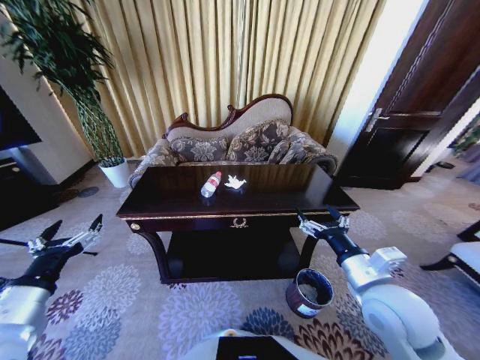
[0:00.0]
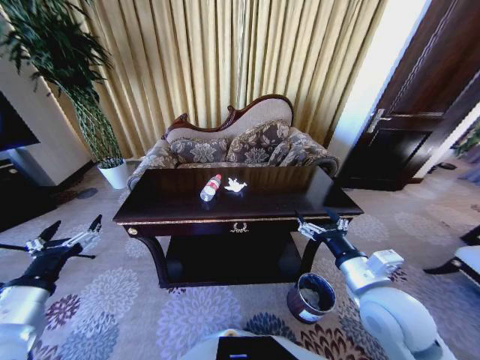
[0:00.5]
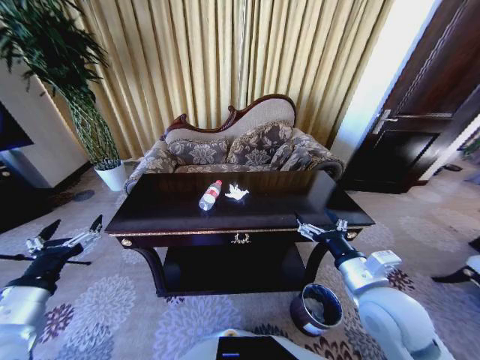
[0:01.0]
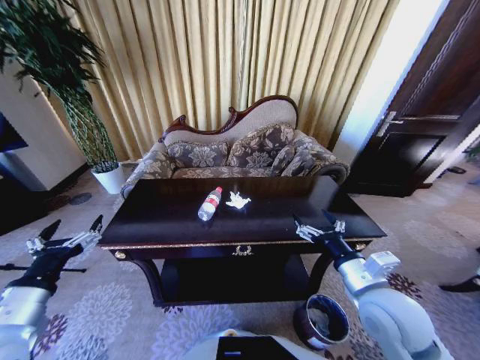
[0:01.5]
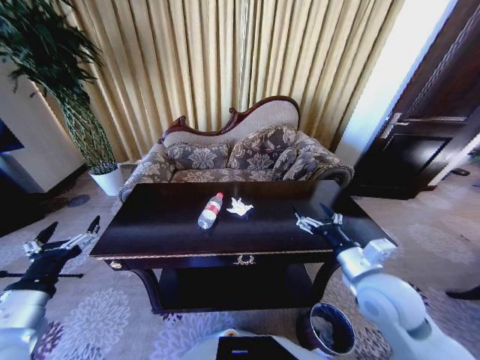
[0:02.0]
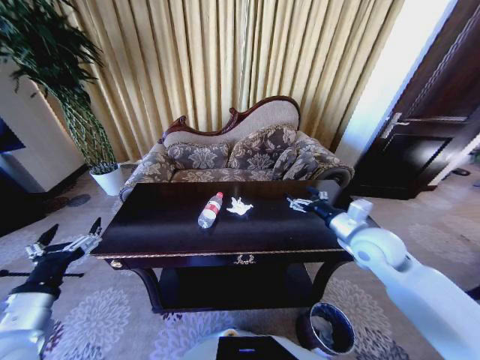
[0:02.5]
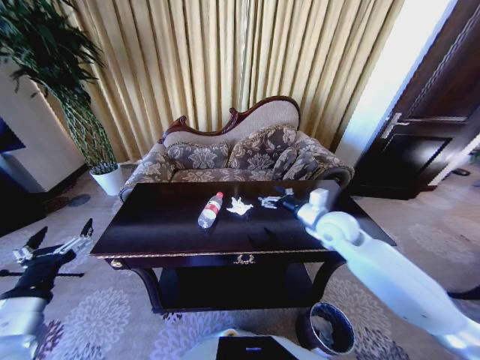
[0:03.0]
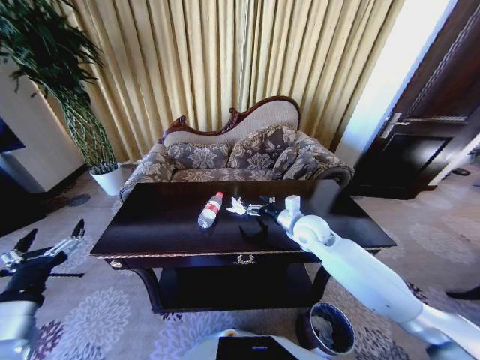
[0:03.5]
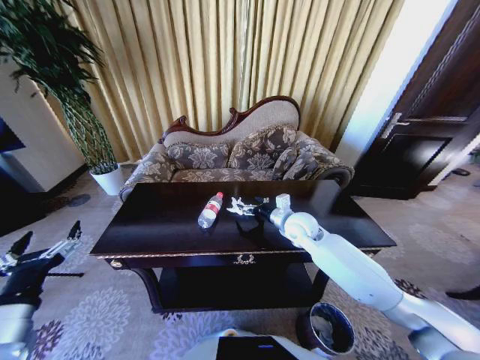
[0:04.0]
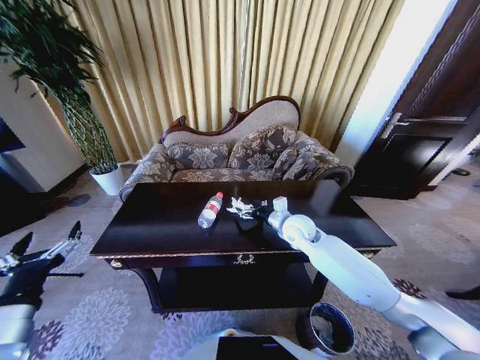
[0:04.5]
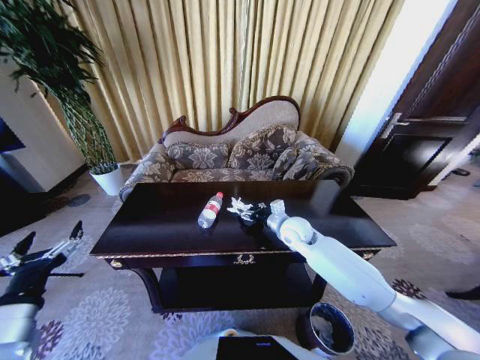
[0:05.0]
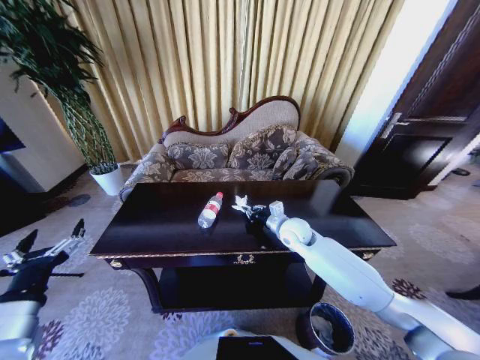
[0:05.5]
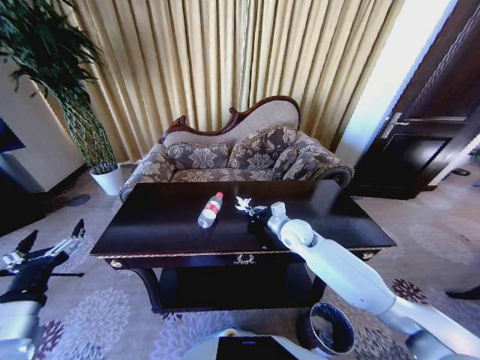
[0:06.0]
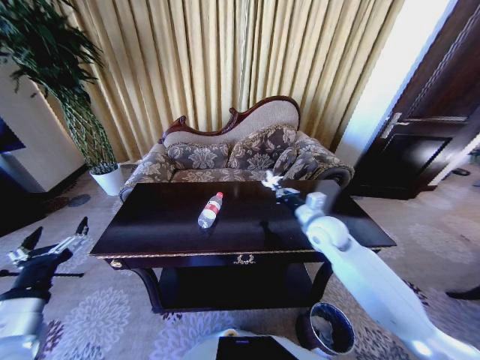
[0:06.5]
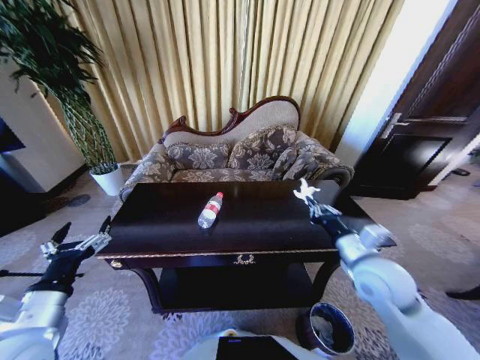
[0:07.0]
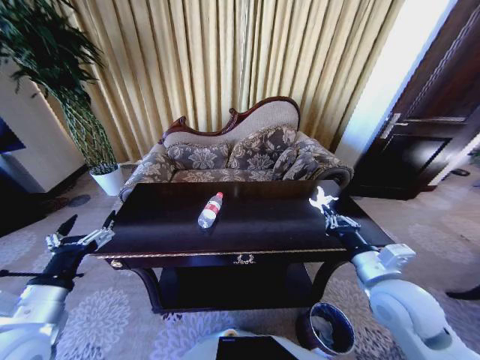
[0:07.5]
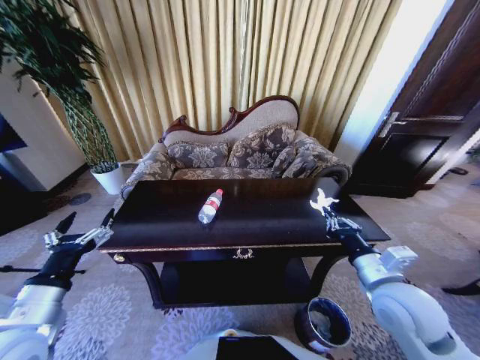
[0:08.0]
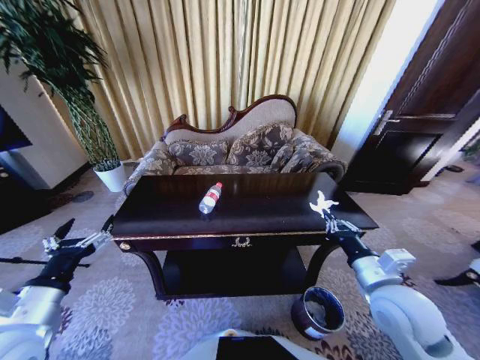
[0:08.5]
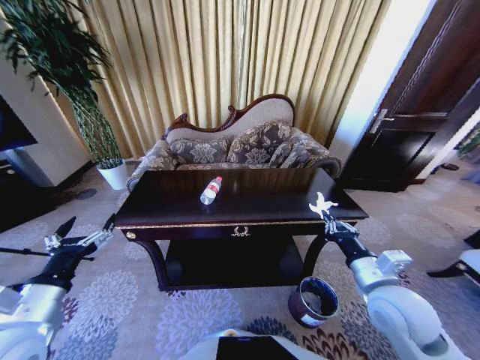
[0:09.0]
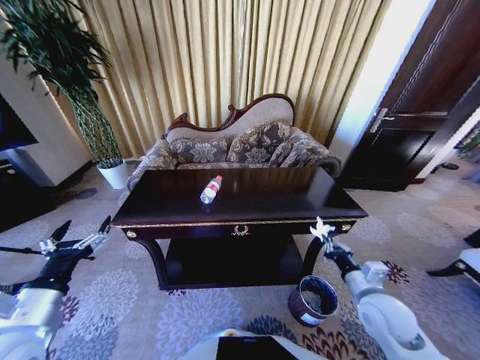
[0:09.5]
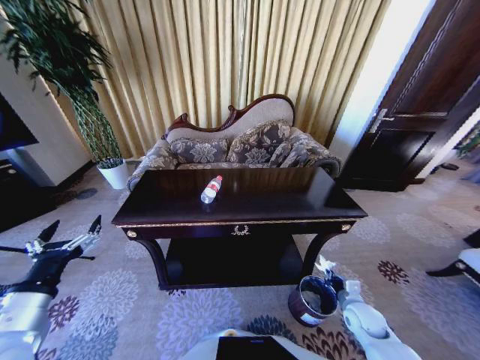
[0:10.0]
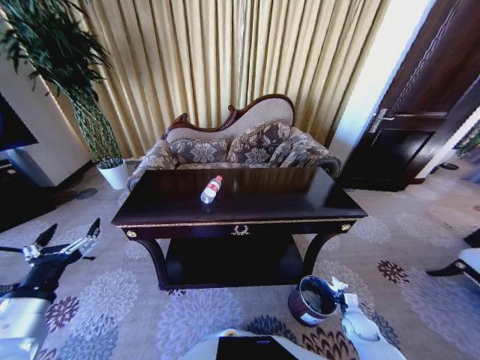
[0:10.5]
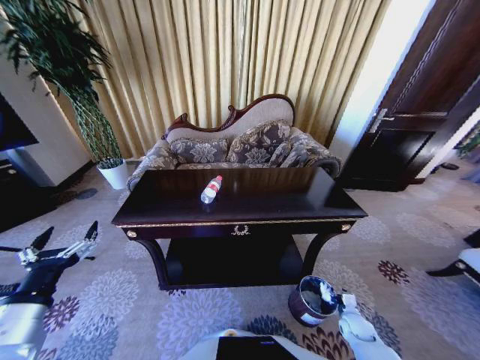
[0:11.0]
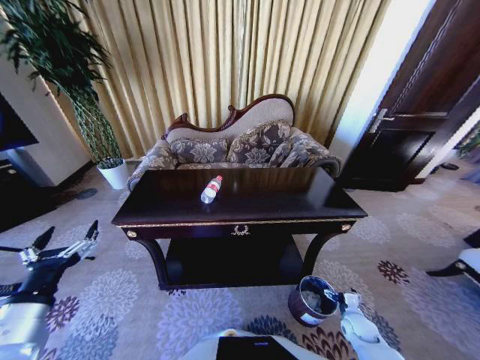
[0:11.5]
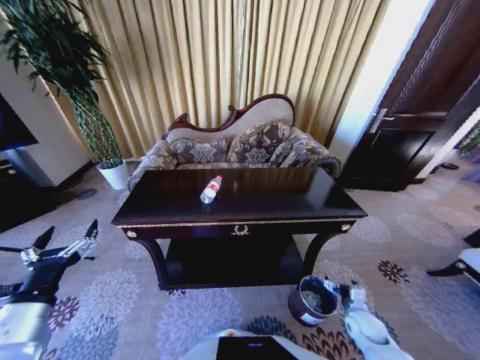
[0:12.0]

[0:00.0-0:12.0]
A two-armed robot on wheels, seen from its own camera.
Task of the whole recording: Move to the front of the table and place the trash on the table into the trash bin.
2.0 to 4.0 s: The right gripper goes approximately 20 cm forward and to the left.
4.0 to 6.0 s: The right gripper closes.
6.0 to 8.0 s: The right gripper travels backward and to the right by roughly 25 cm.
8.0 to 10.0 s: The right gripper travels downward by roughly 25 cm.
10.0 to 12.0 s: The right gripper opens.

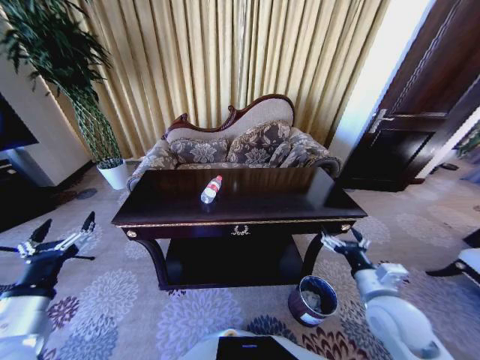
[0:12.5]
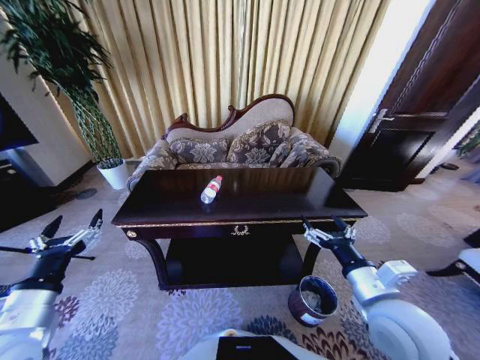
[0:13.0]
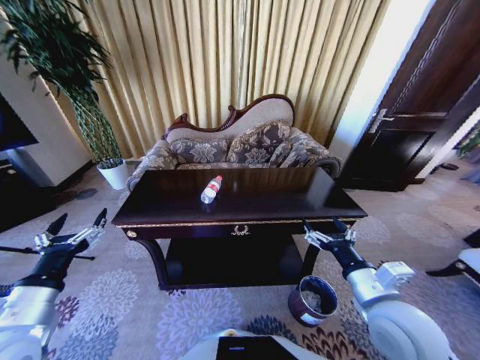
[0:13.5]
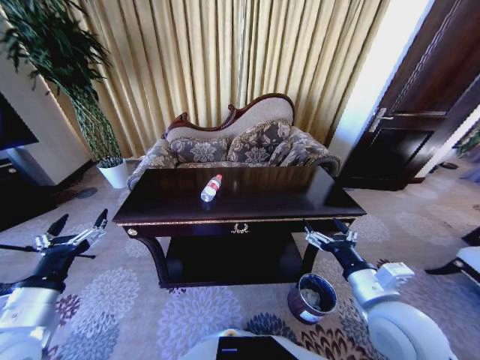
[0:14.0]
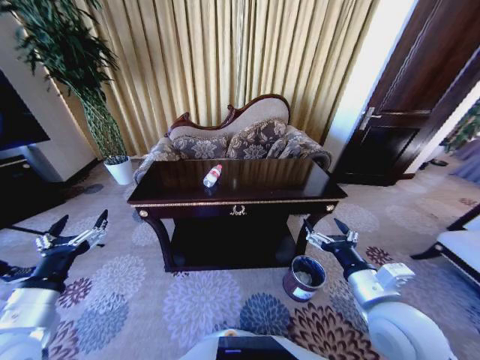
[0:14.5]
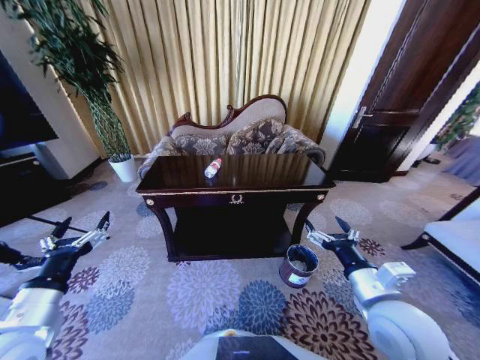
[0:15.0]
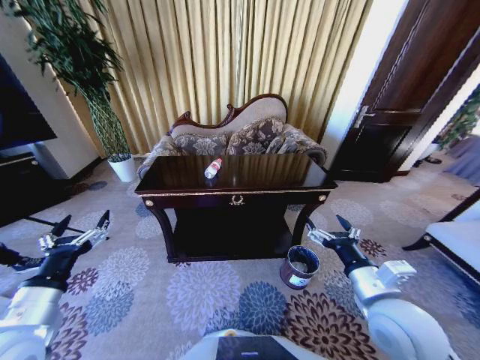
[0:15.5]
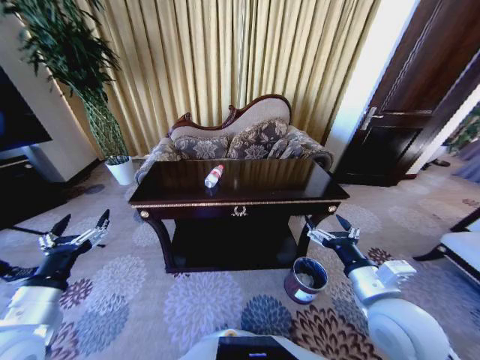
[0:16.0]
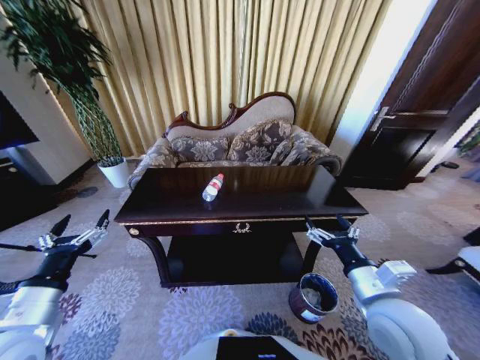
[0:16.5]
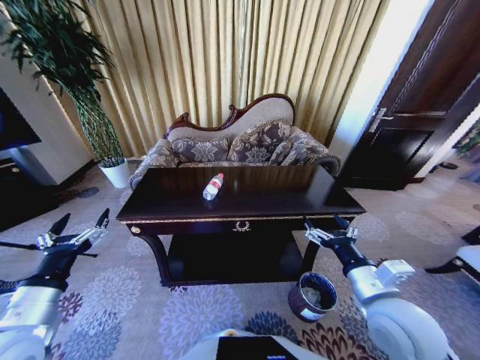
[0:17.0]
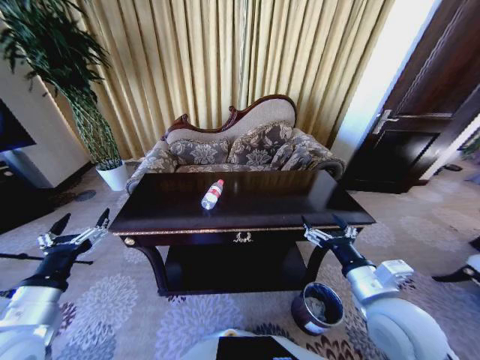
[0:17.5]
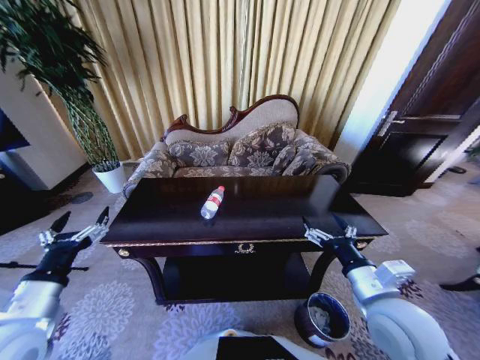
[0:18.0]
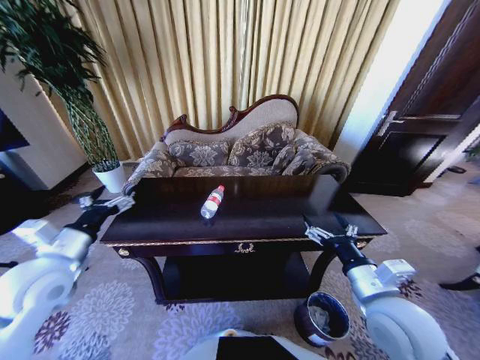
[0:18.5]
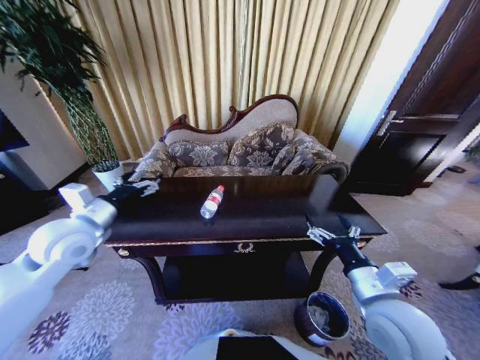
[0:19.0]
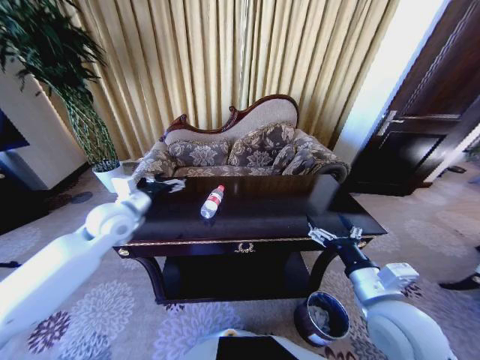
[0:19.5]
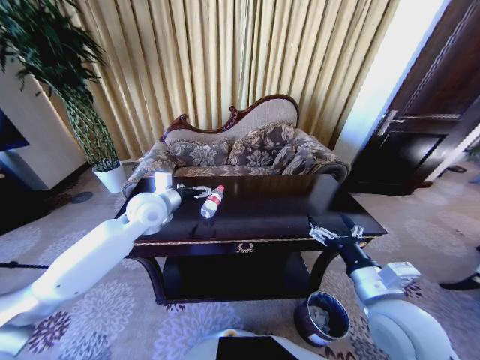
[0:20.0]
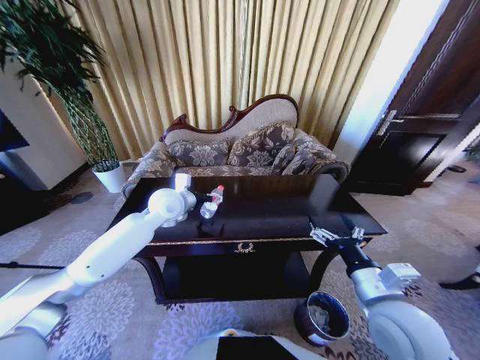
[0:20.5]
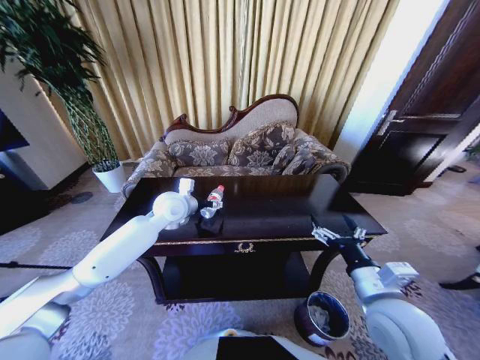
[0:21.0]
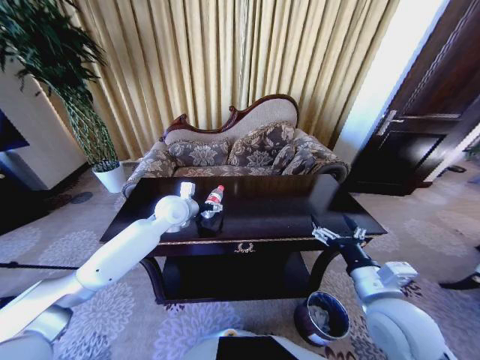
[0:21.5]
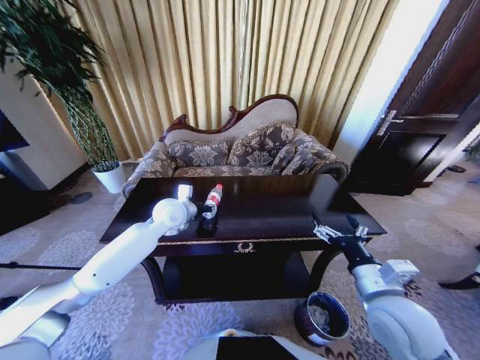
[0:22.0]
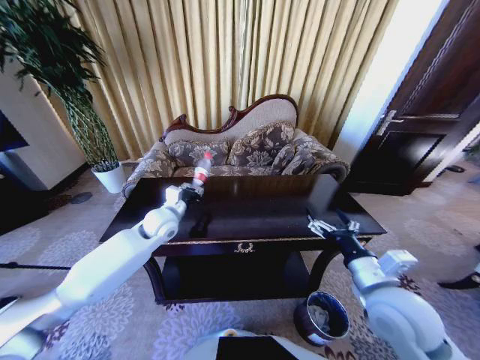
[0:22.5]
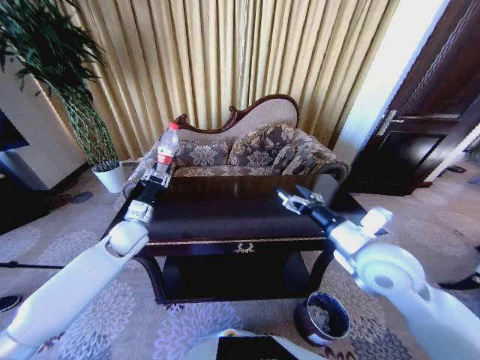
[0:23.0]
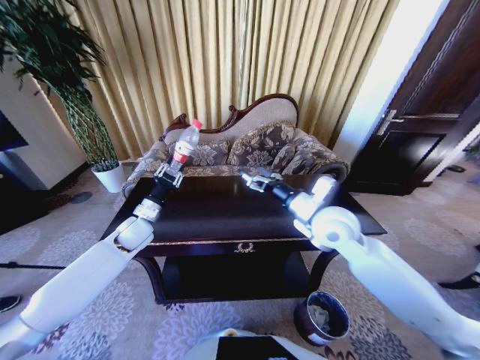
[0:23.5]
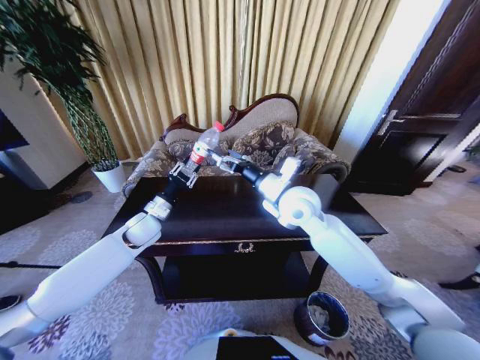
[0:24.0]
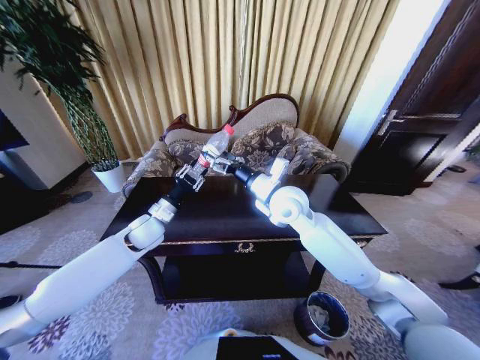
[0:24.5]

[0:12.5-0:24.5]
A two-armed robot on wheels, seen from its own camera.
Task of the whole recording: Move to the front of the table and place the trash on the table into the trash bin.
12.5 to 14.5 s: The right gripper heads upward and to the left, covering some 10 cm.
16.5 to 18.5 s: The left gripper travels forward by roughly 10 cm.
18.5 to 20.5 s: The left gripper shifts some 25 cm forward and to the right.
20.5 to 22.5 s: The left gripper travels downward by some 5 cm, and closes up.
22.5 to 24.5 s: The right gripper heads forward and to the left, covering some 25 cm.

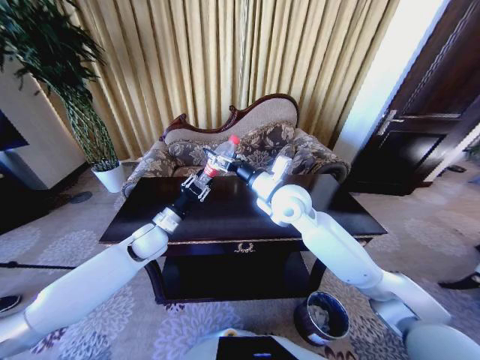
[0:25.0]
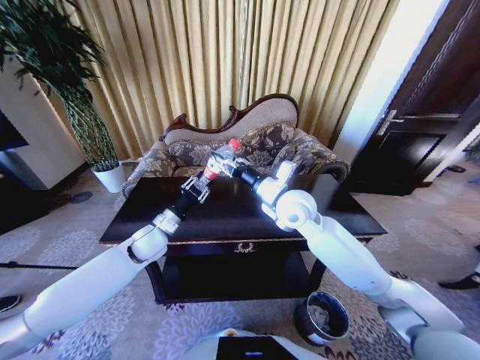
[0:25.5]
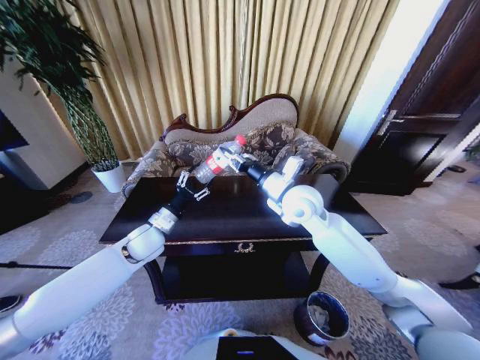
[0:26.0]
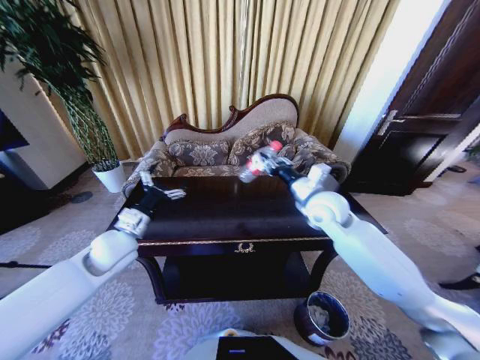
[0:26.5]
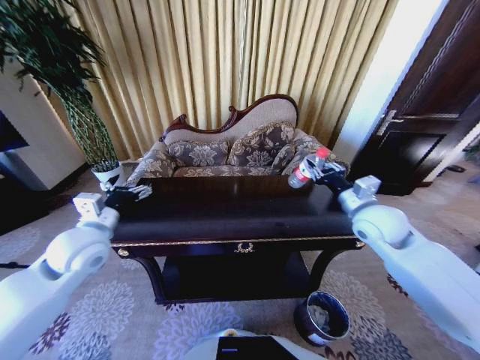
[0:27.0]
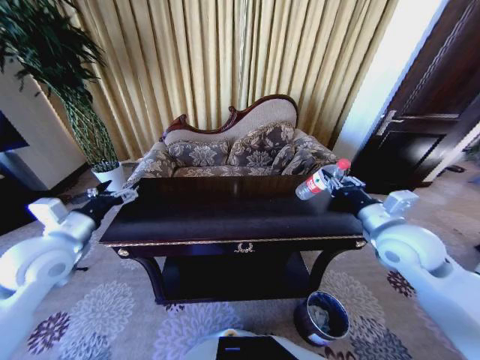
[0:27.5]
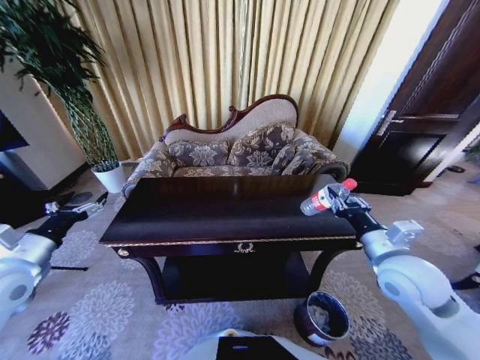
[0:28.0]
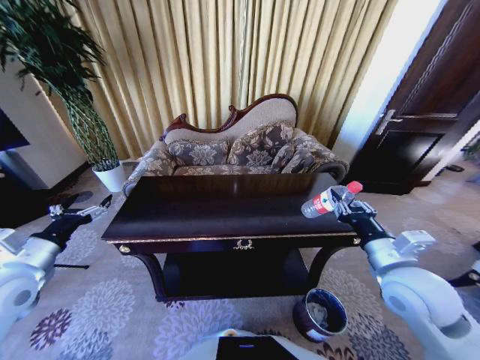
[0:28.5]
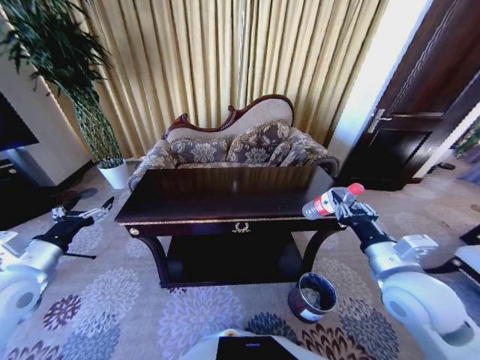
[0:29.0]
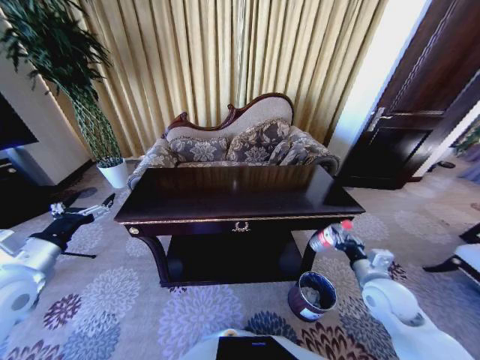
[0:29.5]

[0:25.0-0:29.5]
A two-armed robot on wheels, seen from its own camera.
Task of the whole recording: Move to the front of the table and place the trash on the table into the trash bin.
25.0 to 27.0 s: The left gripper is displaced upward, to the left and backward by some 15 cm, and opens its fingers. The right gripper is displaced to the right by approximately 20 cm, and closes up.
27.0 to 29.5 s: The left gripper travels to the left and backward by about 15 cm; the right gripper moves downward and backward, approximately 20 cm.
